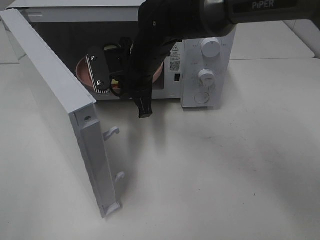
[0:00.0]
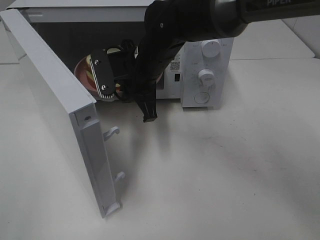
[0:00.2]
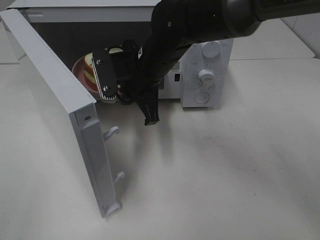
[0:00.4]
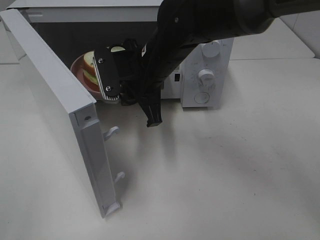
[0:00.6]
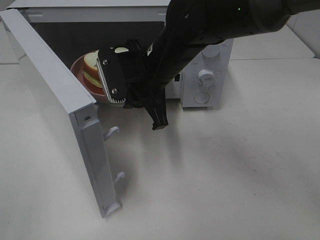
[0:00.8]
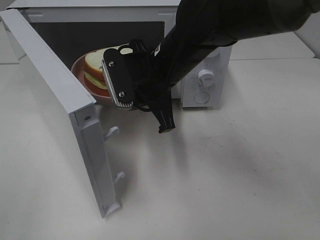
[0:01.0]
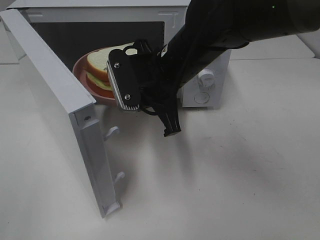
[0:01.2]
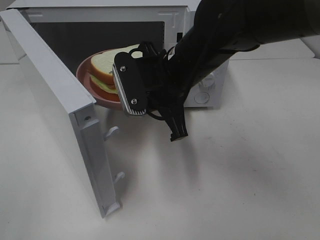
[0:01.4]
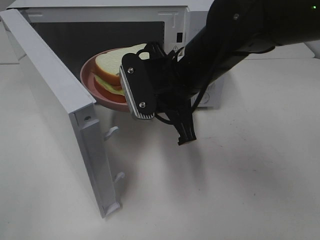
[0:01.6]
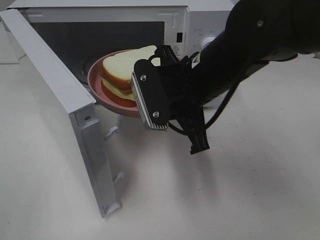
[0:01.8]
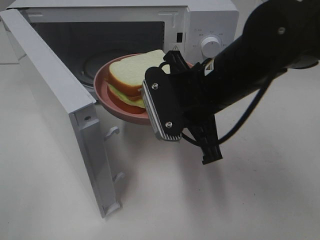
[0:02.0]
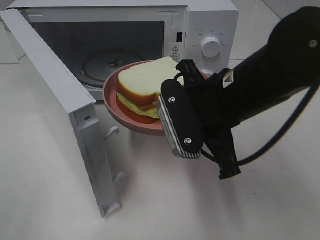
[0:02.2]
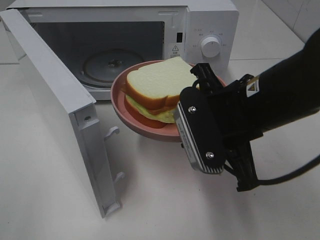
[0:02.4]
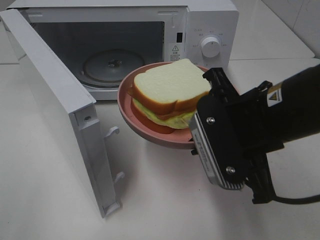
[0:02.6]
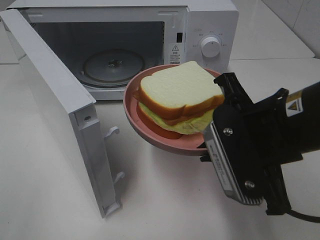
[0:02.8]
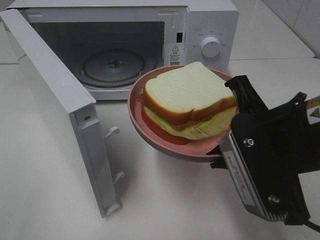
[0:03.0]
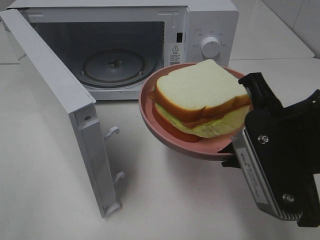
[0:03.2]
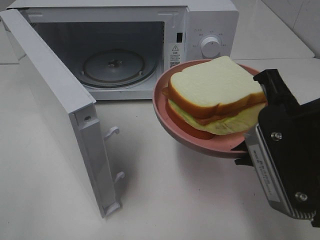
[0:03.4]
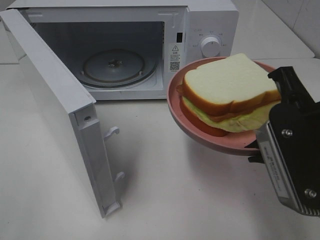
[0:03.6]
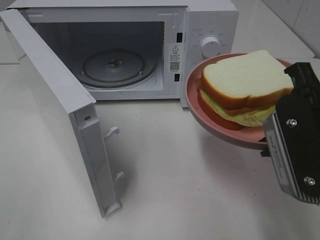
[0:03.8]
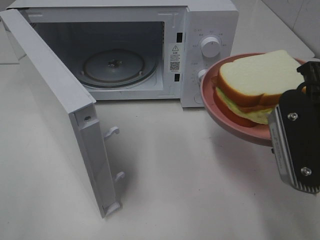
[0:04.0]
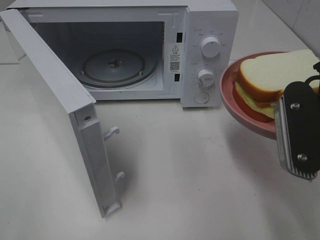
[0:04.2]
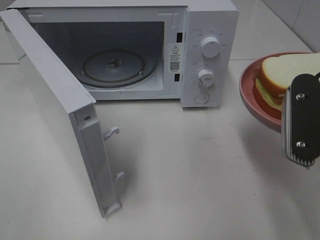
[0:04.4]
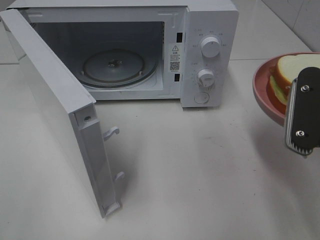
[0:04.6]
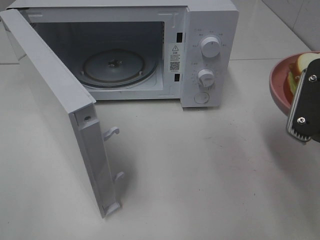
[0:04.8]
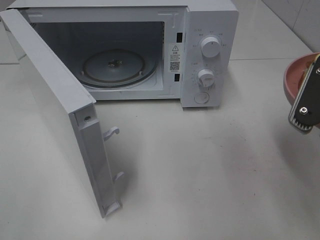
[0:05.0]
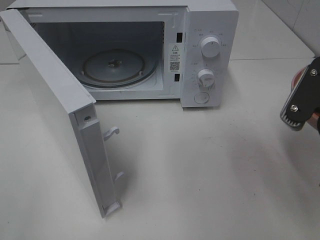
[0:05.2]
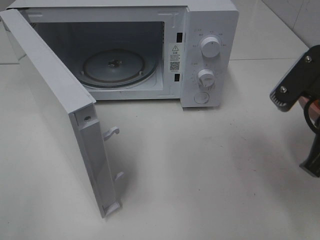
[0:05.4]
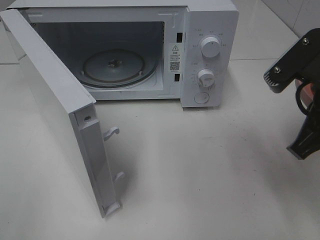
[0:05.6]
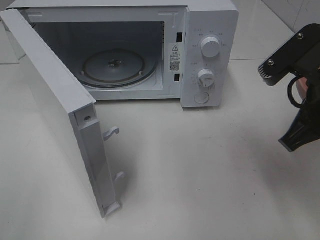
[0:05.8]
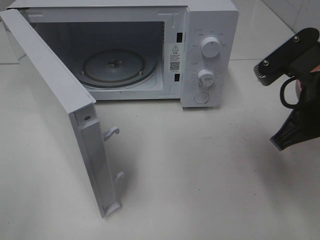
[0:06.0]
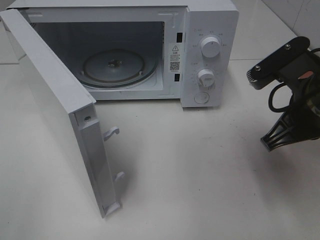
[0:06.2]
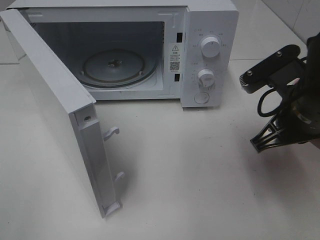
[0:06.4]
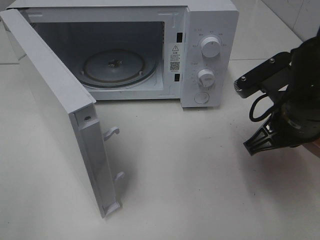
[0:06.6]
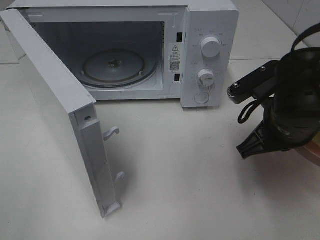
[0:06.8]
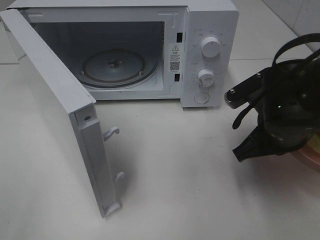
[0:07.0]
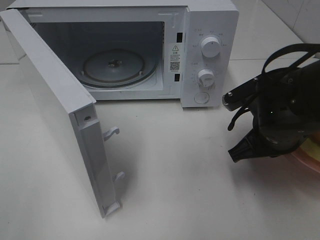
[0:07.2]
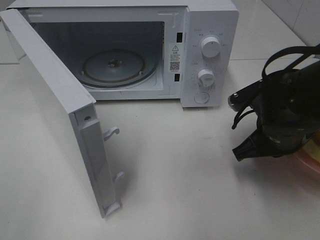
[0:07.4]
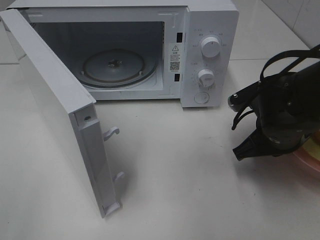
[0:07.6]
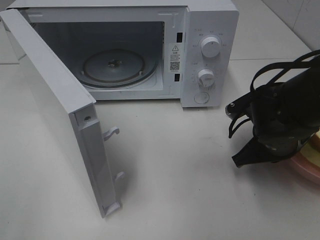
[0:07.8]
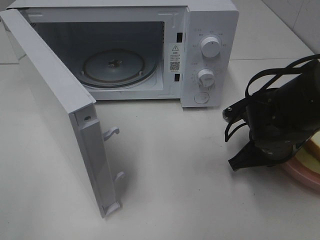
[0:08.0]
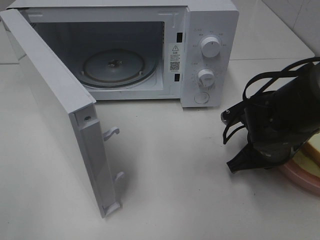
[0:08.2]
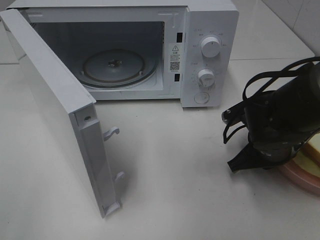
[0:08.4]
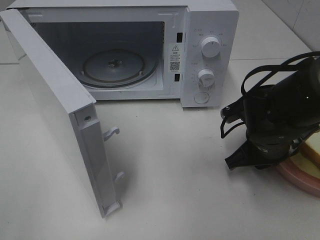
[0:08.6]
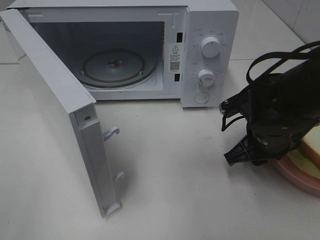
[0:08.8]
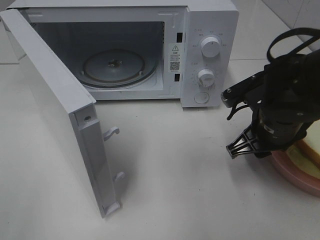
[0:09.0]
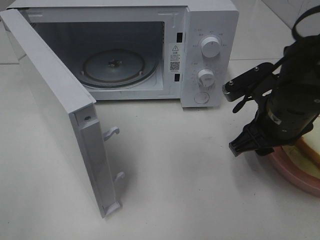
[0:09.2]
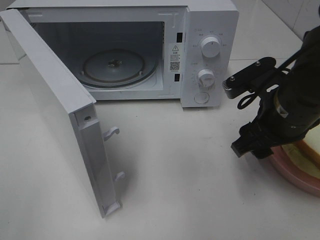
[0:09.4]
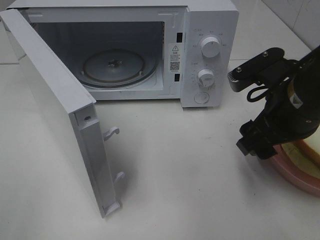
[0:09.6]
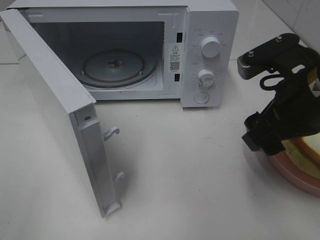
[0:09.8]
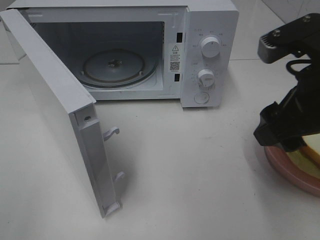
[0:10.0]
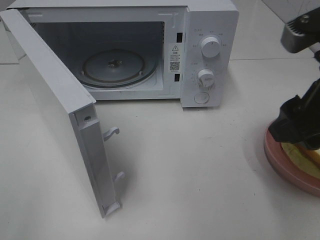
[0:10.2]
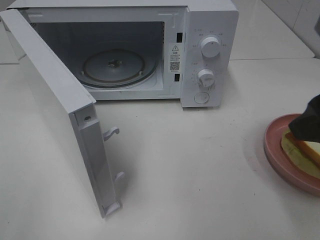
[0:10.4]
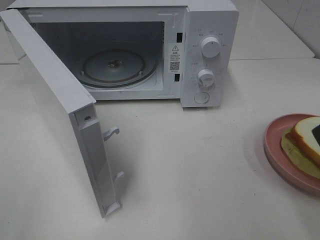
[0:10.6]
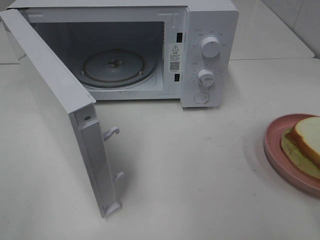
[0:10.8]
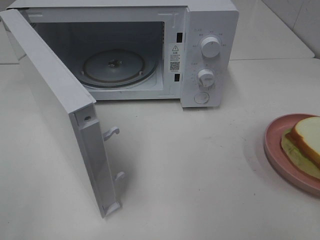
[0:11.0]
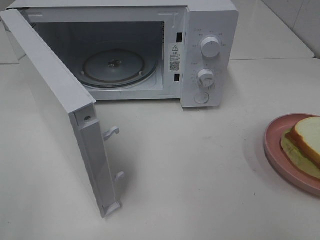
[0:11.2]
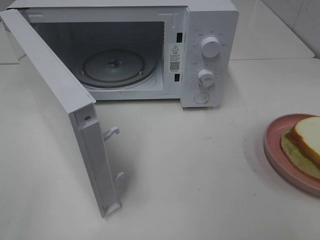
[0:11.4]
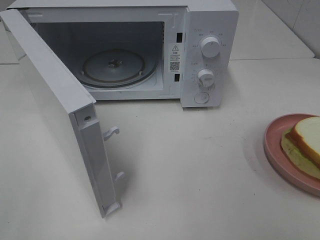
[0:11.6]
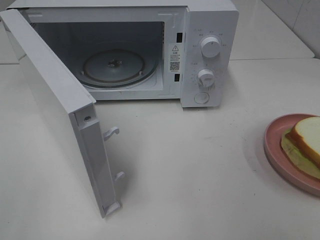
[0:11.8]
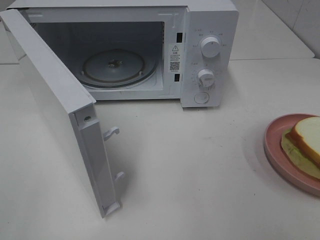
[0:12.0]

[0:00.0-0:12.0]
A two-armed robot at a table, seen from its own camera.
Task of the whole recording: Heat Sandwich.
Step, 0:00.0 to 0:10.2: Right hand: place the plate on the table.
0:00.0 to 0:01.6: The right gripper moves backward and to the right, roughly 10 cm.
0:01.6 to 0:03.0: The right gripper moves backward and to the right, roughly 15 cm.
0:03.0 to 0:04.4: The right gripper shifts some 5 cm to the right.
0:04.4 to 0:06.0: The right gripper heads forward, covering about 5 cm.
0:06.0 to 0:07.6: The right gripper moves downward and forward, some 10 cm.
0:07.6 to 0:09.0: The right gripper opens its fingers.
0:09.0 to 0:10.4: The right gripper is displaced upward and backward by approximately 20 cm.
0:10.4 to 0:12.0: The right gripper shifts approximately 15 cm backward and to the right.

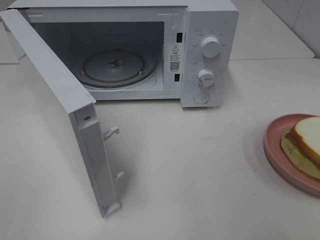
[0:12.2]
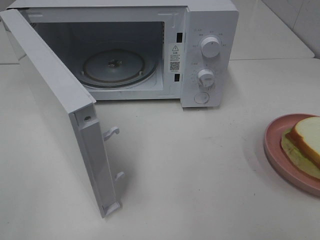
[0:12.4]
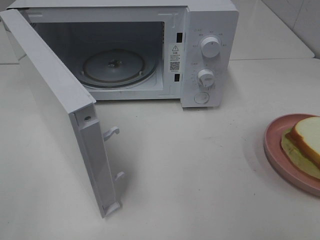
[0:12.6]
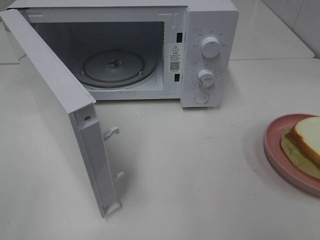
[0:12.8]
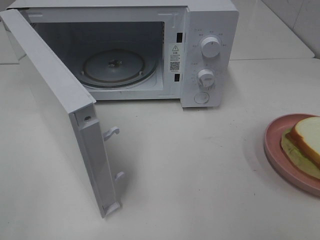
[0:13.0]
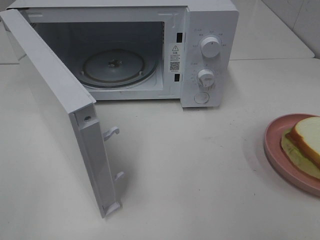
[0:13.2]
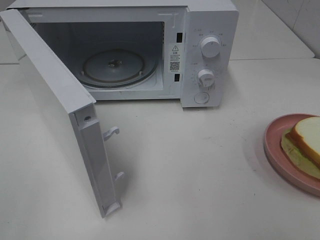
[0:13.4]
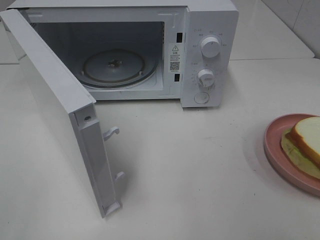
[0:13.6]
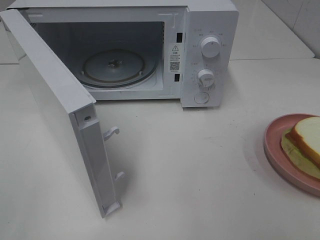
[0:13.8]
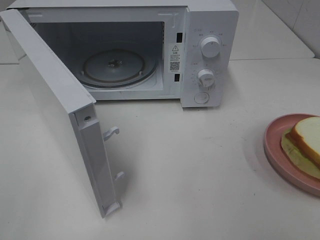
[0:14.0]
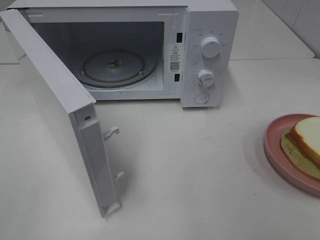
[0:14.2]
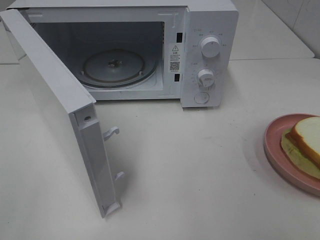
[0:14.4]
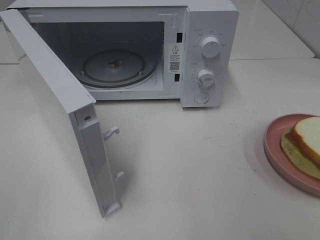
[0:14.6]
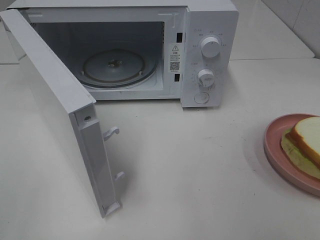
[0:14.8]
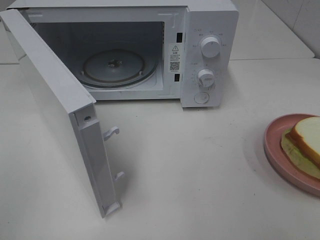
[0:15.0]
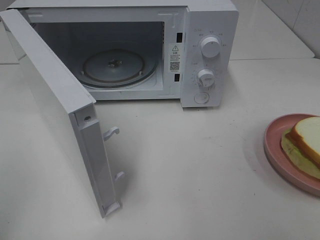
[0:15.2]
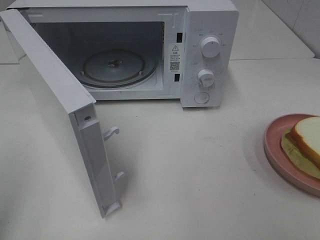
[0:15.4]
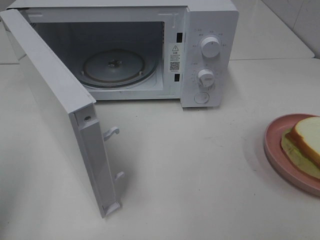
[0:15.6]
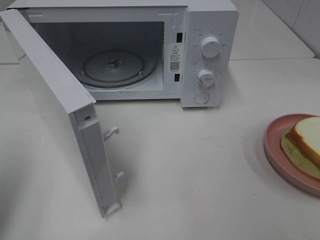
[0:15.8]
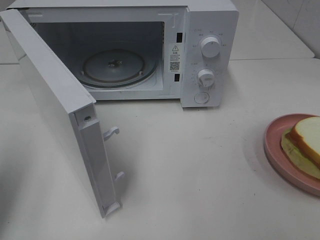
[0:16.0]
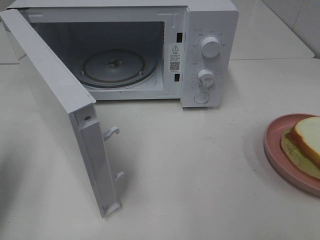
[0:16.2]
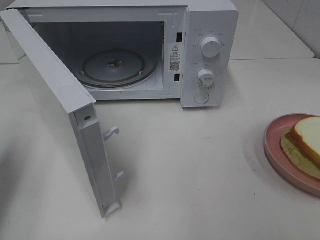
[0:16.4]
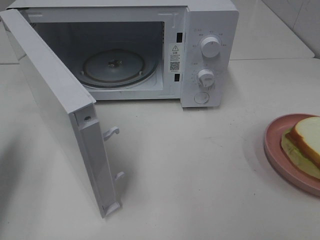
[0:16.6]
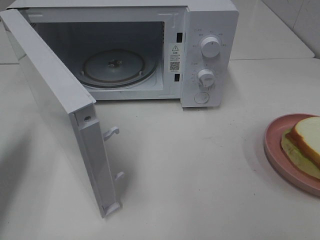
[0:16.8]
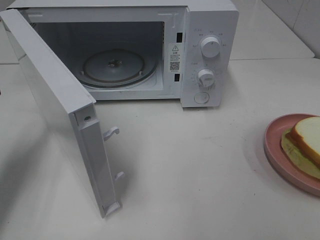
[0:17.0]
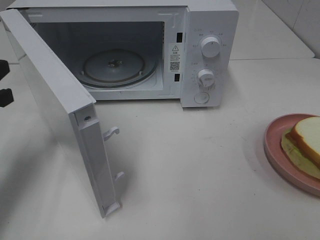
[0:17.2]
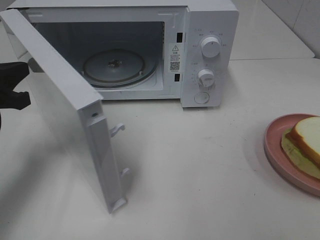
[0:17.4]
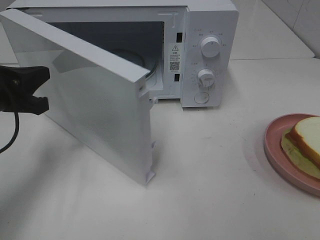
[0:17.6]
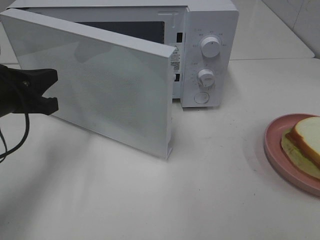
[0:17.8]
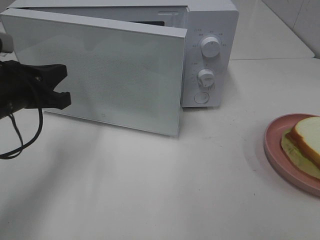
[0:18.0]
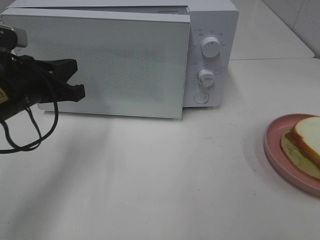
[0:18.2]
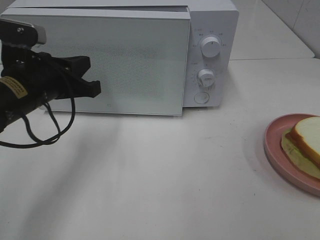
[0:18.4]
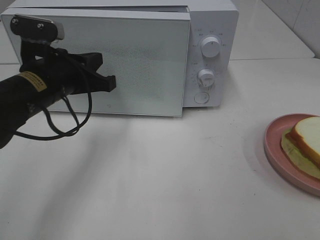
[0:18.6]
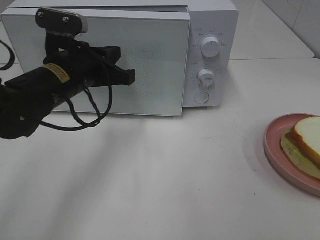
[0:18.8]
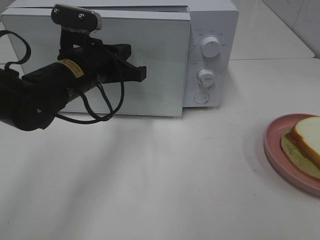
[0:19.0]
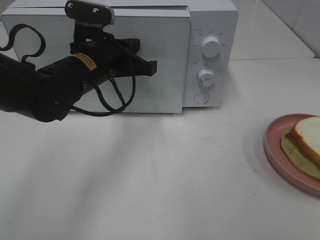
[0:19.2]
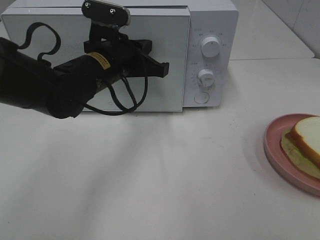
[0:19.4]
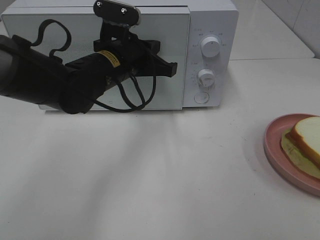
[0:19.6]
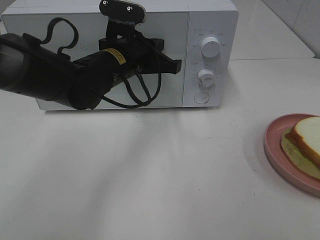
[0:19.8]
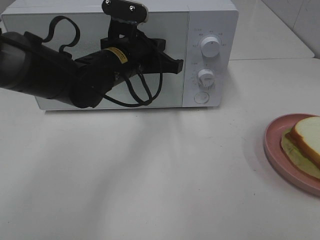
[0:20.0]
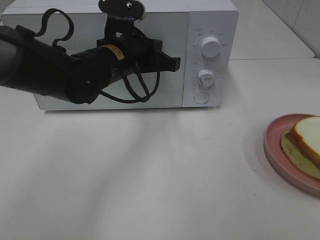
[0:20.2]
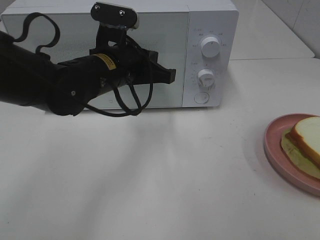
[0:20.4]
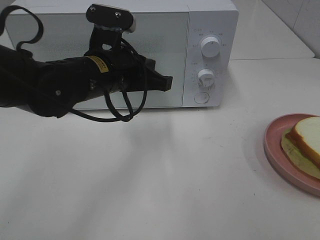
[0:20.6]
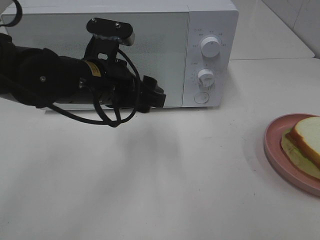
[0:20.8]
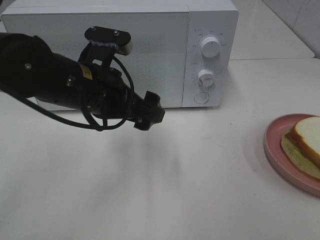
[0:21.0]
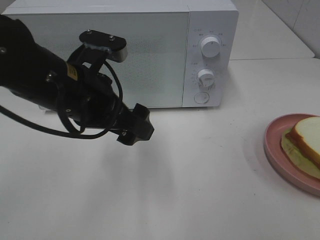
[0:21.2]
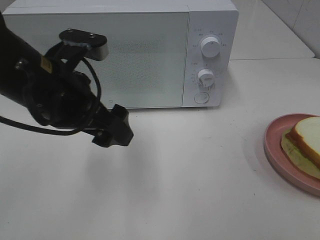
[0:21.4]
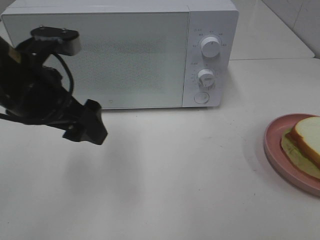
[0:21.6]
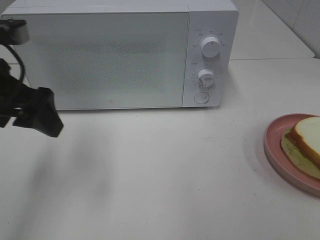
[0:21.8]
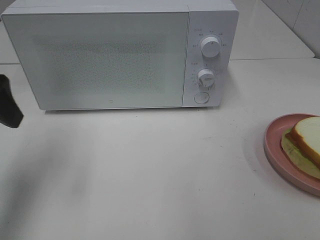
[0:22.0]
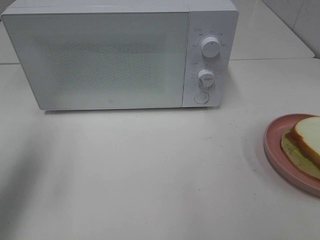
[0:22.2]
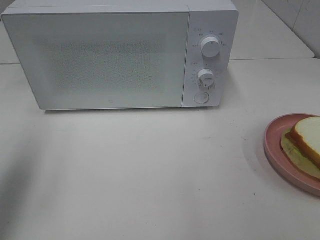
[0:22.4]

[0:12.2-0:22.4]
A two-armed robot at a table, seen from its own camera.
Task of the whole recording: Heat Sandwich.
Step, 0:12.2 to 0:20.6: Left hand: close the microwave door.
0:15.2 to 0:16.6: The left gripper is displaced forward by roughly 15 cm, and closes.
0:16.6 to 0:18.0: The left gripper shifts some 10 cm to the right.
0:18.0 to 0:19.4: The left gripper shifts about 15 cm to the right and forward.
0:19.4 to 0:21.0: The left gripper heads backward, covering roughly 10 cm, and opens its fingers.
0:21.0 to 0:22.4: The left gripper heads to the left and upward, covering some 25 cm.
